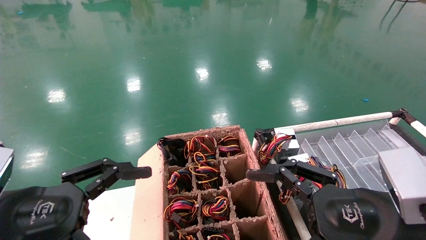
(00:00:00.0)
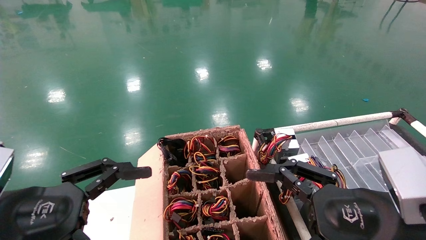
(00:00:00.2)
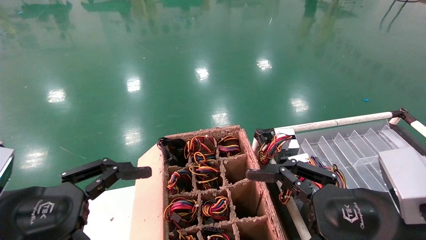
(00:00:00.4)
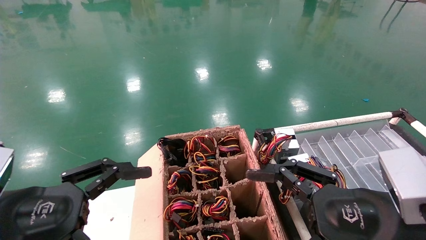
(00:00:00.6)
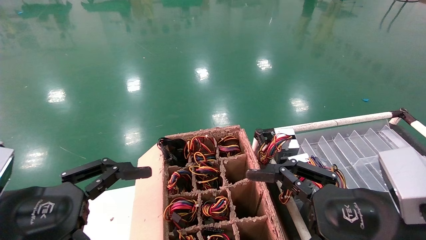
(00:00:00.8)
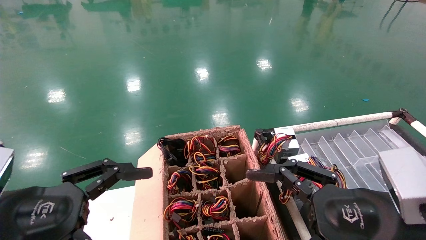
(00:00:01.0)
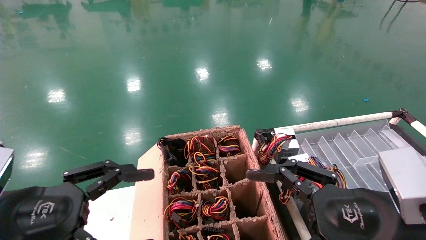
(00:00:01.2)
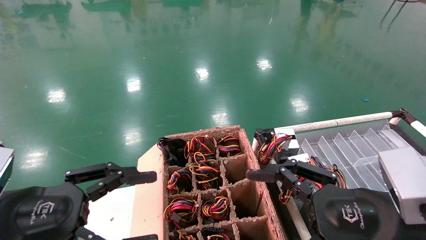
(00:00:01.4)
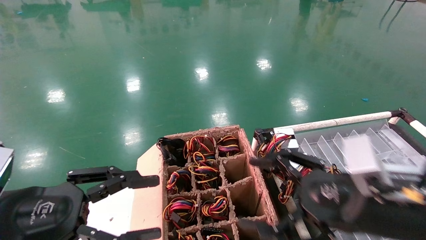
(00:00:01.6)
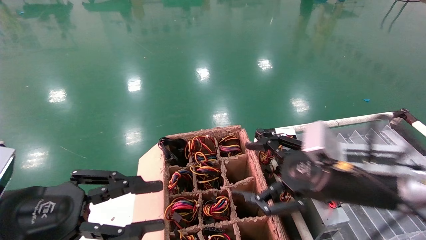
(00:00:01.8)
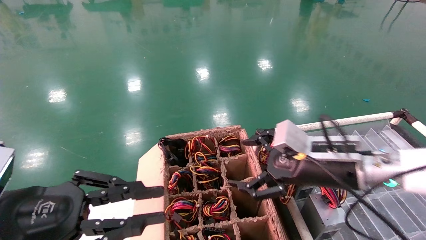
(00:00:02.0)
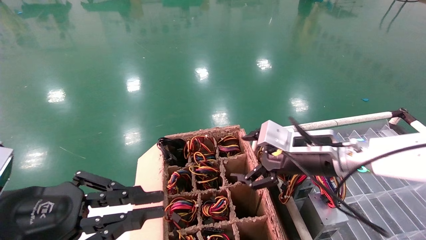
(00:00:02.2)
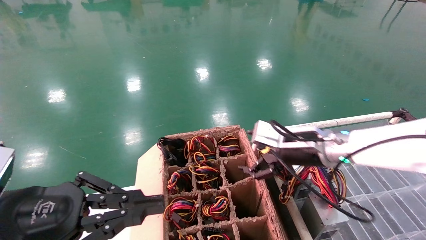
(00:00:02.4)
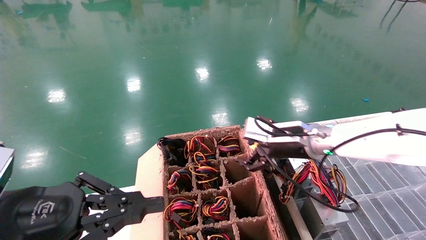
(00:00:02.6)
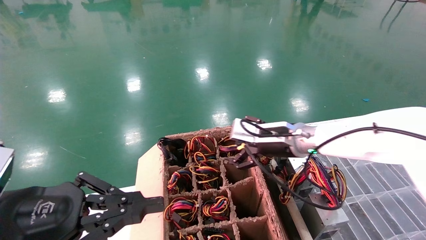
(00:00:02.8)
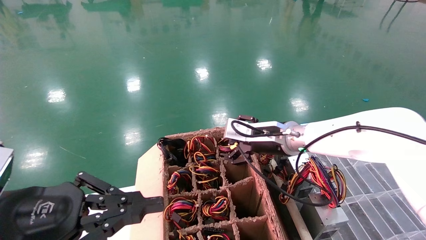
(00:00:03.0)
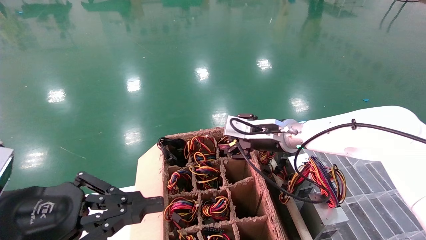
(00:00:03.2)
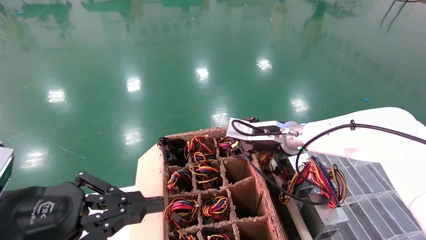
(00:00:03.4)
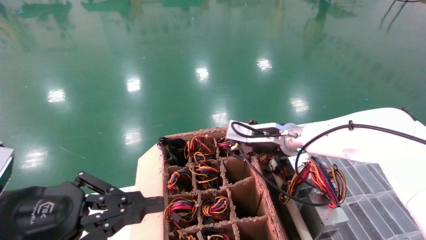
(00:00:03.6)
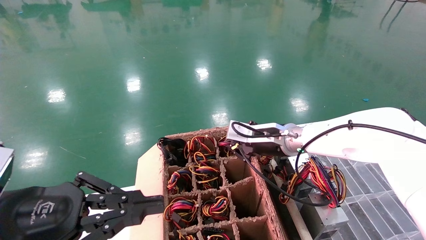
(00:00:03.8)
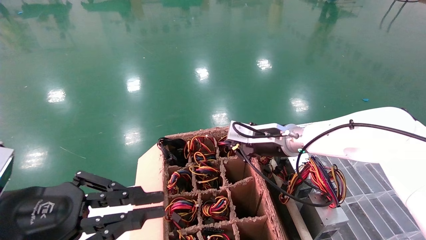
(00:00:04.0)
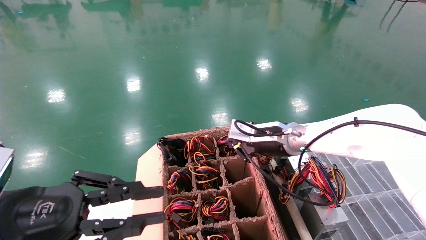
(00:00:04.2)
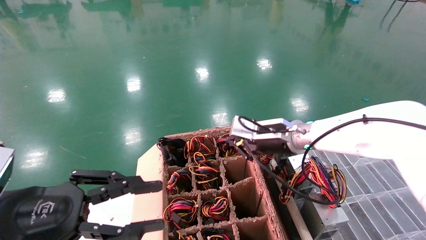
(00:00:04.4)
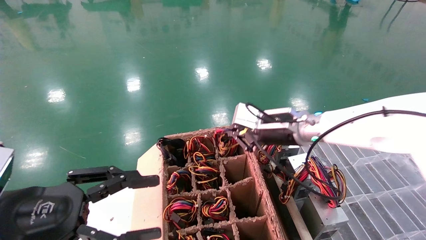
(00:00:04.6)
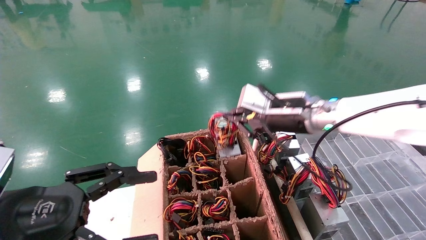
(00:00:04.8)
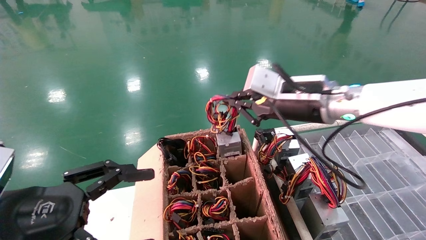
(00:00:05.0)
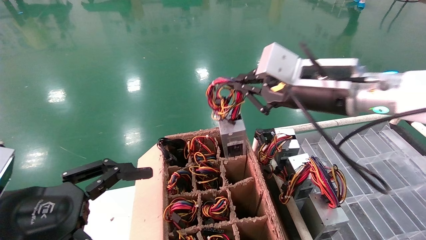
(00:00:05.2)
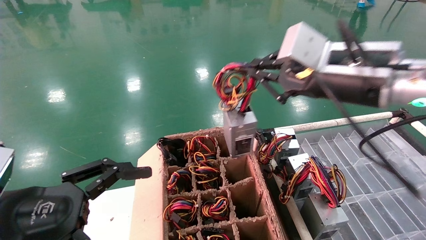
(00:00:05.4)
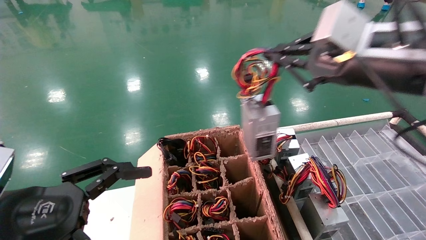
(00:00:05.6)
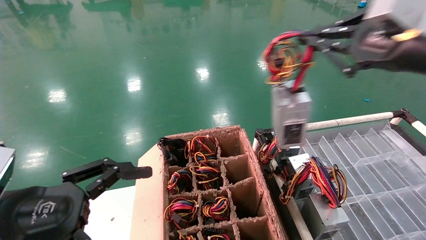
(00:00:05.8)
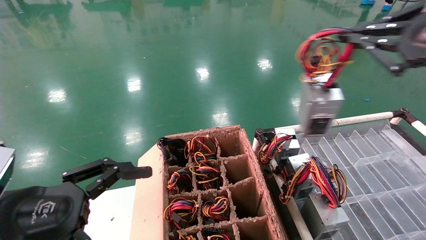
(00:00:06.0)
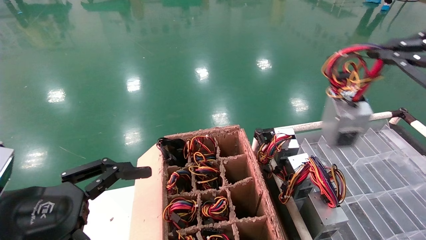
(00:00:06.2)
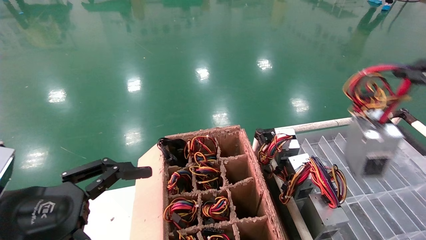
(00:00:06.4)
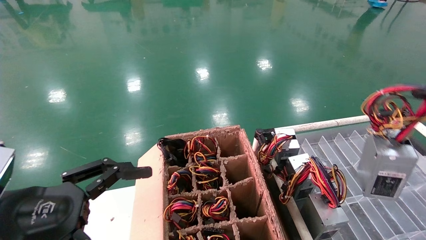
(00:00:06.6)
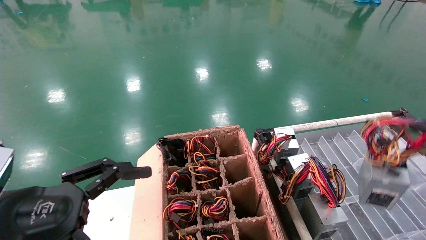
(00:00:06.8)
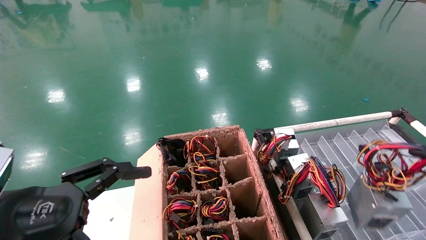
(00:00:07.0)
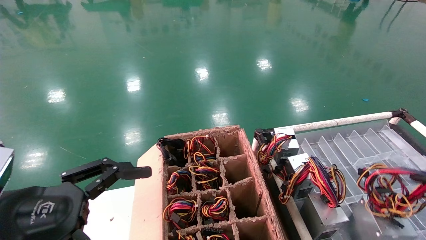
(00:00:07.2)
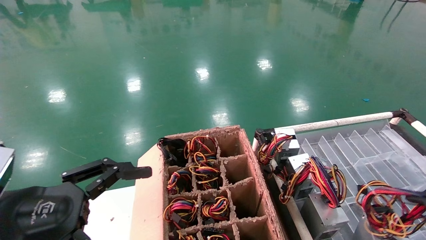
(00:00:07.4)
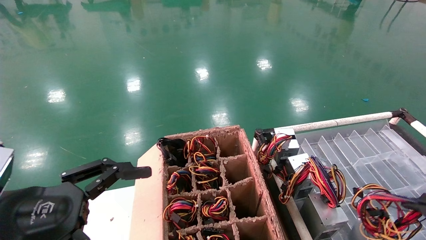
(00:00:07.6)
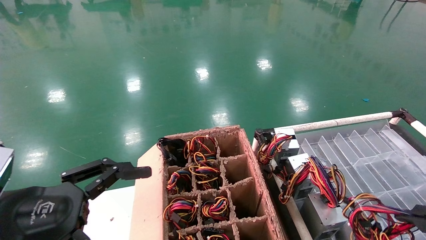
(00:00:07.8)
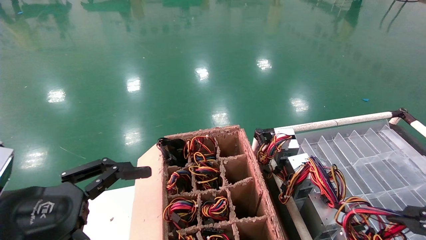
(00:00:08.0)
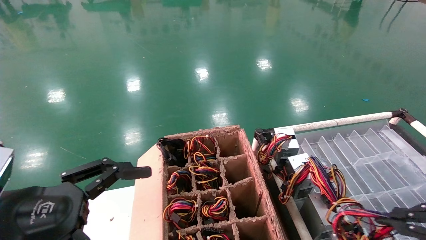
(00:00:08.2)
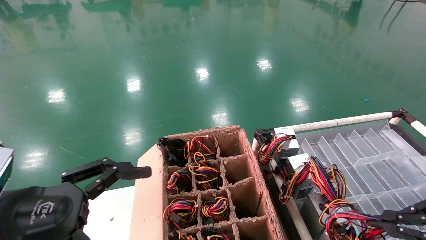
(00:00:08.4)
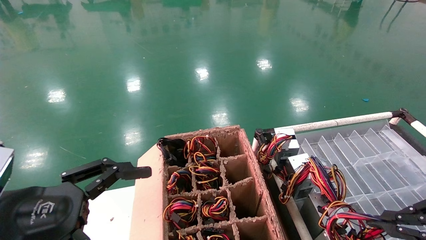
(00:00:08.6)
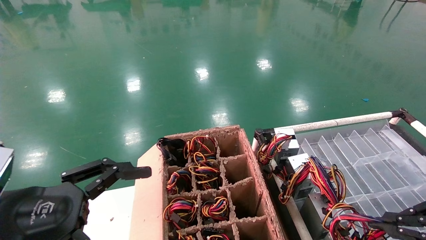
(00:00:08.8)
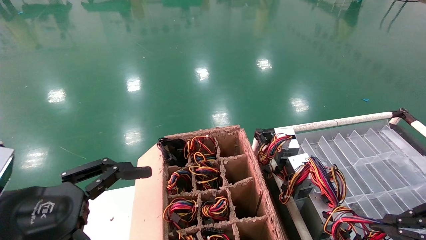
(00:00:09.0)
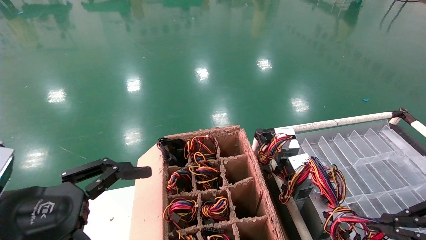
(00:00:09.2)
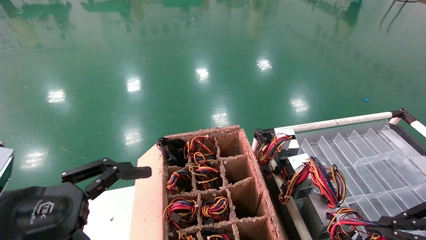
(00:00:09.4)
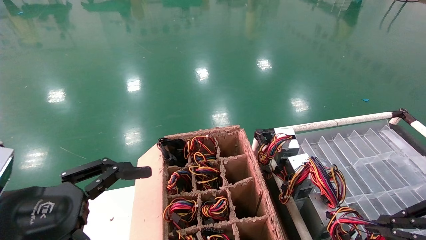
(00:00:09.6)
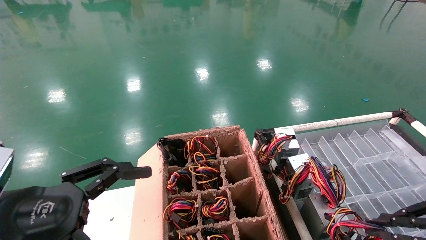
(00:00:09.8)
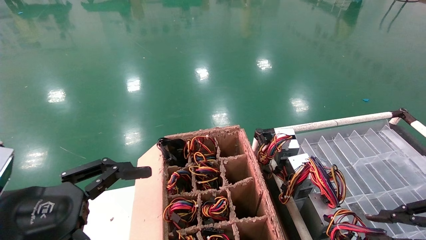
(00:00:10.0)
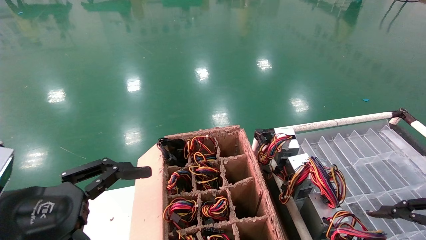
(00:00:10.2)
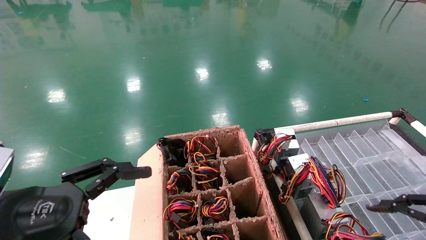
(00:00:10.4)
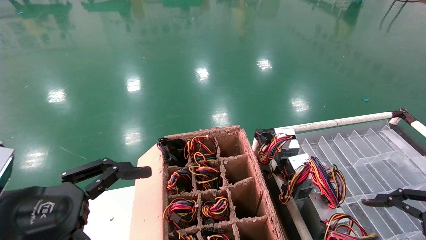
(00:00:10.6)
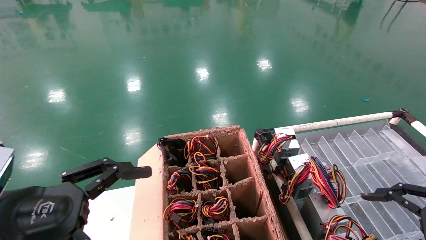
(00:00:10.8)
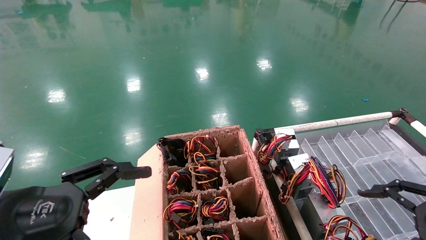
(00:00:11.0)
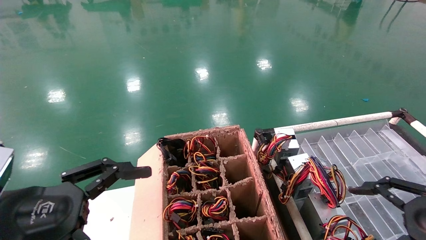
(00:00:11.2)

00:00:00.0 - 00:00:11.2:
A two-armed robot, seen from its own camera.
Step, 00:00:01.4 - 00:00:04.0: Grab and lift the power supply from the large box.
Step, 00:00:04.2 - 00:00:09.8: Place the power supply on the operating table.
00:00:00.0 - 00:00:01.6: The grippers move only a little.
00:00:01.6 - 00:00:03.2: The right gripper heads forward and to the left, covering roughly 25 cm, while the left gripper closes its fingers.
00:00:03.2 - 00:00:04.8: The left gripper opens. The right gripper travels upward and backward by some 10 cm, and closes up.
00:00:04.8 - 00:00:06.4: The left gripper opens, while the right gripper travels to the right and backward by roughly 30 cm.
00:00:06.4 - 00:00:08.0: The right gripper moves downward, approximately 15 cm.
00:00:08.0 - 00:00:09.6: The right gripper changes place by approximately 5 cm.
00:00:09.6 - 00:00:11.2: The right gripper opens.

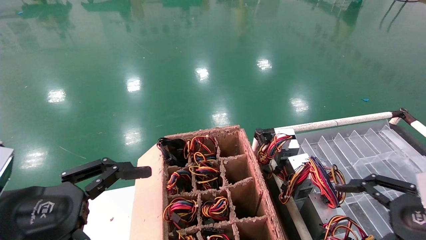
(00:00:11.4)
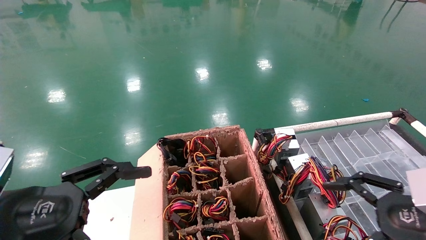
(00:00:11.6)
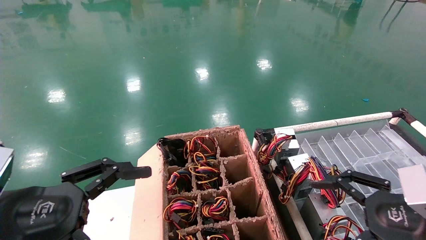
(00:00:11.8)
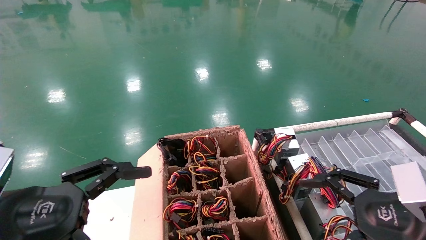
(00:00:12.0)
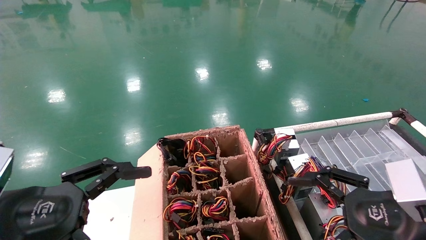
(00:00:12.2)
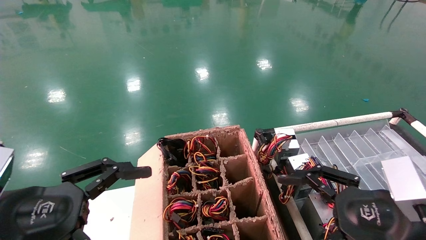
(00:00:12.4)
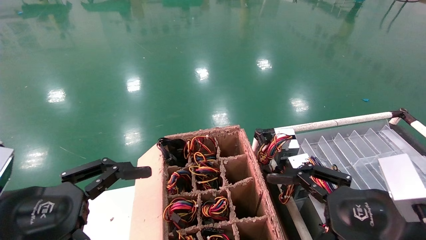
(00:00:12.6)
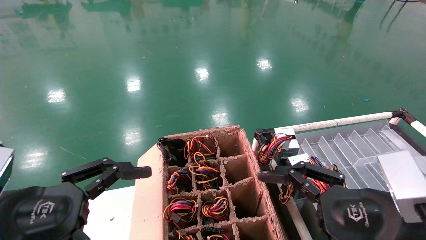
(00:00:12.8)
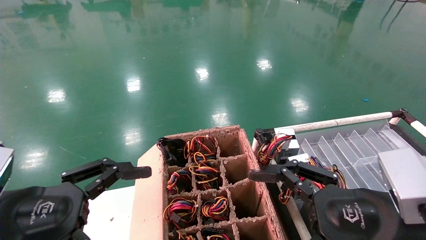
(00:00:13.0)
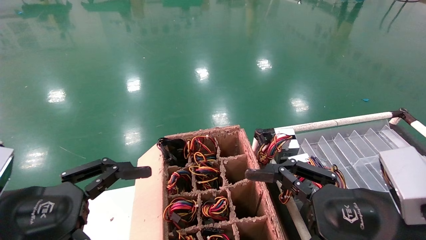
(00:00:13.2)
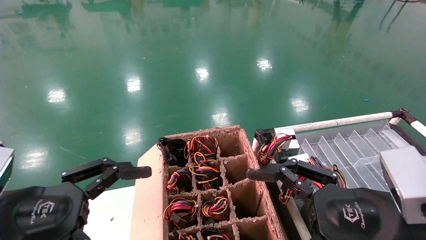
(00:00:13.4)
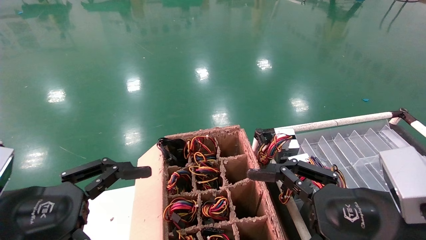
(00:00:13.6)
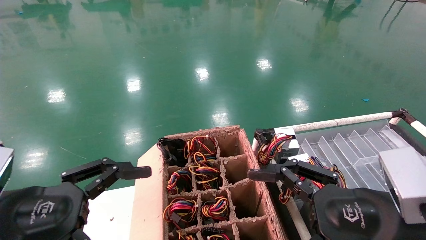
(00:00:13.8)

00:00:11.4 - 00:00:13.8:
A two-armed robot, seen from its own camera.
00:00:11.4 - 00:00:12.6: The right gripper is displaced to the left by about 10 cm.
00:00:12.6 - 00:00:13.8: The grippers move only a little.
